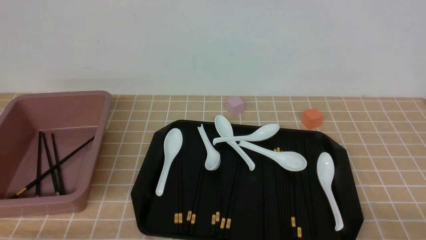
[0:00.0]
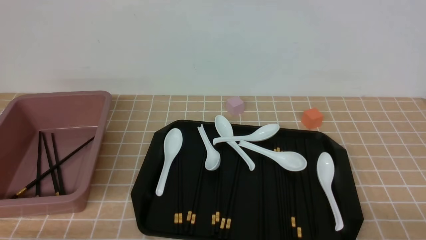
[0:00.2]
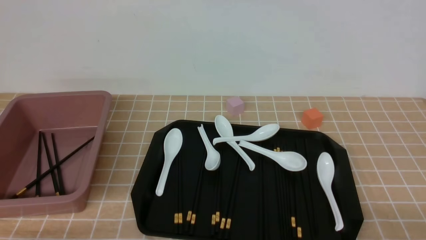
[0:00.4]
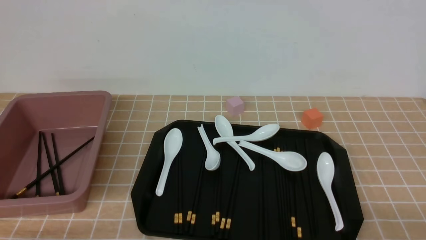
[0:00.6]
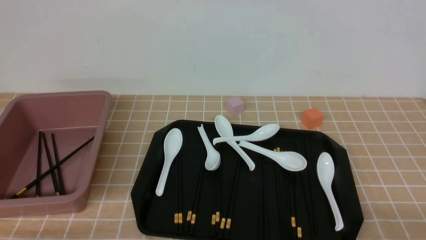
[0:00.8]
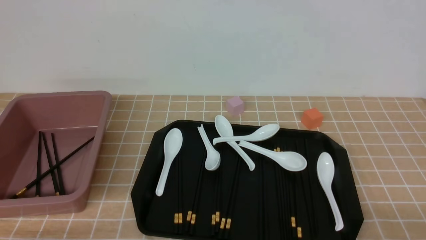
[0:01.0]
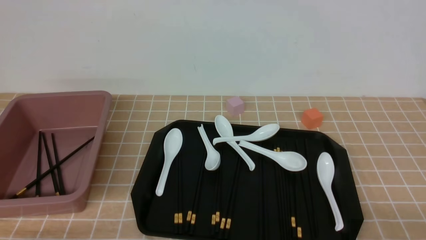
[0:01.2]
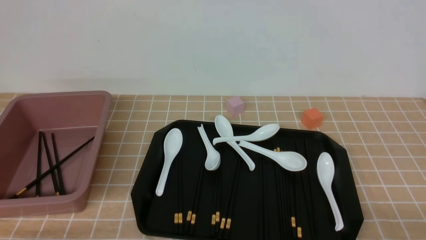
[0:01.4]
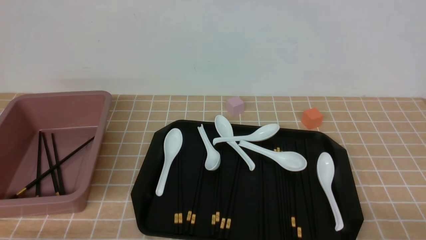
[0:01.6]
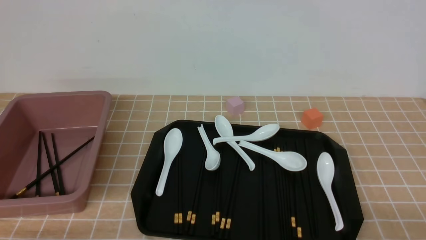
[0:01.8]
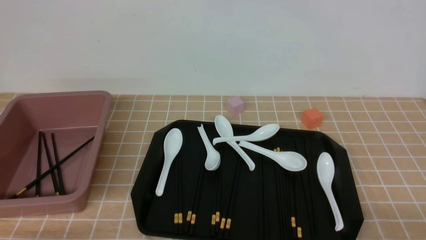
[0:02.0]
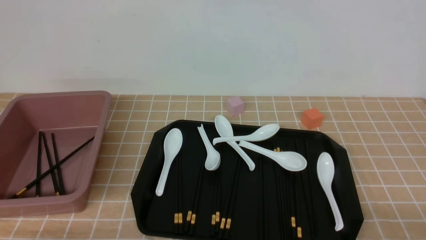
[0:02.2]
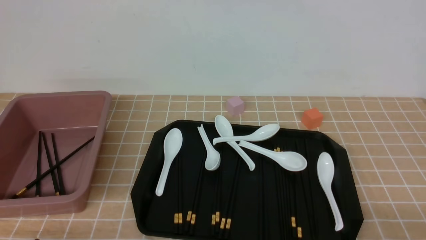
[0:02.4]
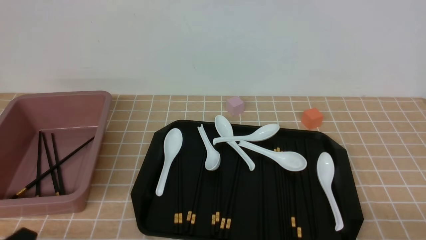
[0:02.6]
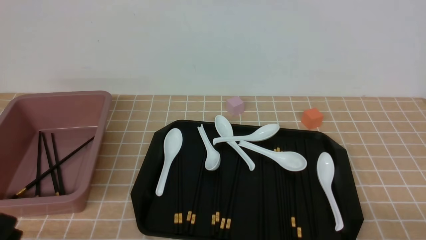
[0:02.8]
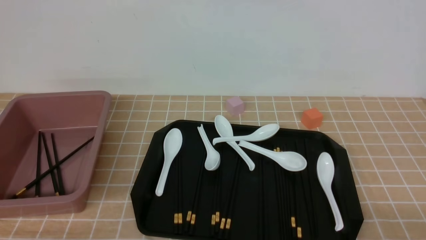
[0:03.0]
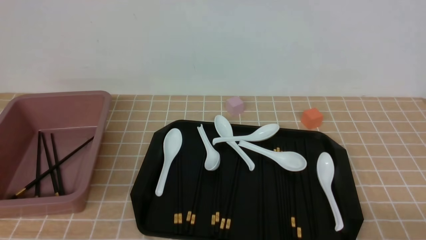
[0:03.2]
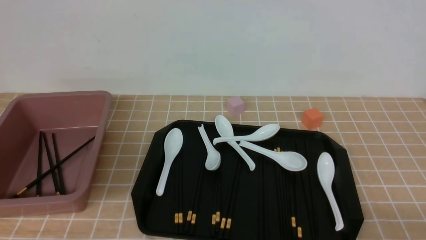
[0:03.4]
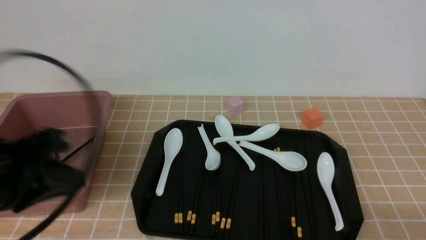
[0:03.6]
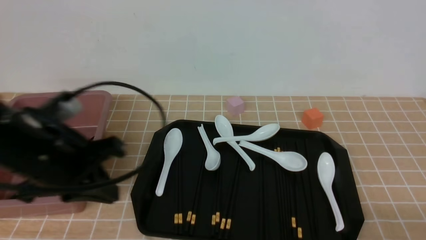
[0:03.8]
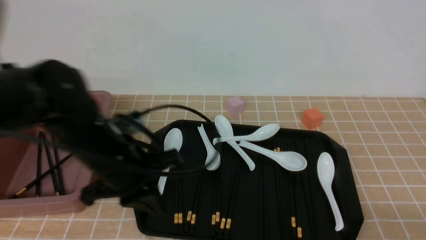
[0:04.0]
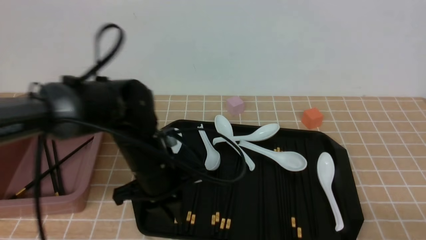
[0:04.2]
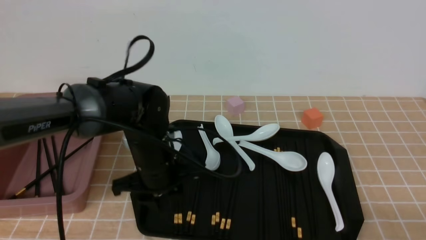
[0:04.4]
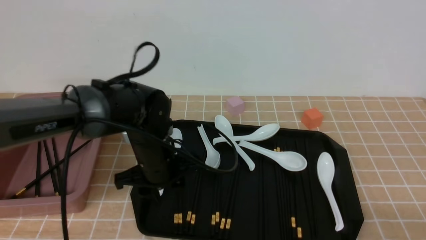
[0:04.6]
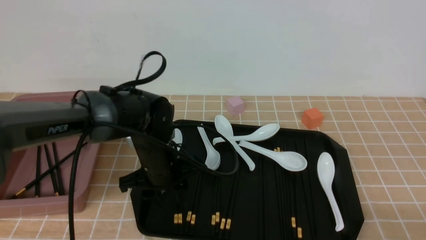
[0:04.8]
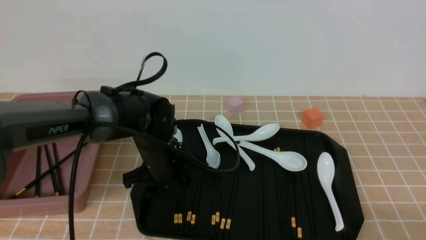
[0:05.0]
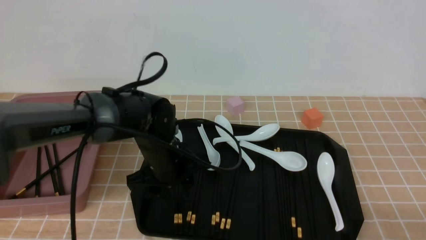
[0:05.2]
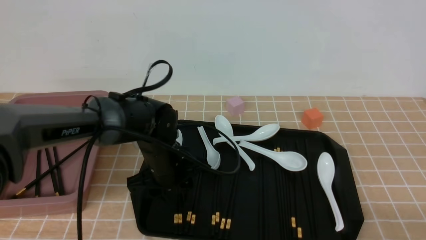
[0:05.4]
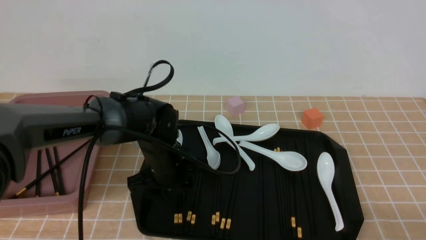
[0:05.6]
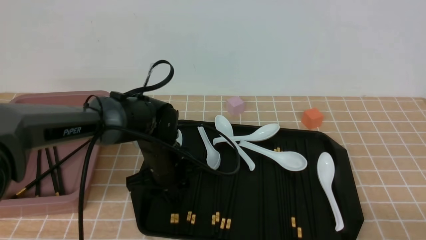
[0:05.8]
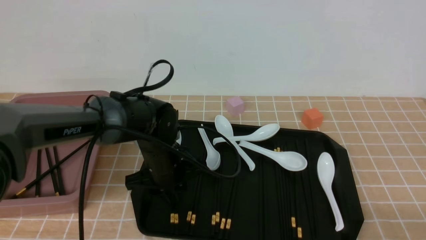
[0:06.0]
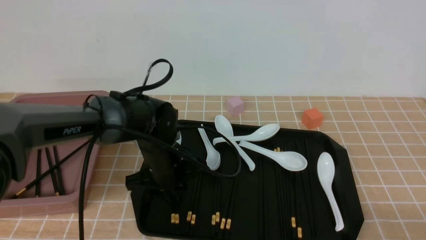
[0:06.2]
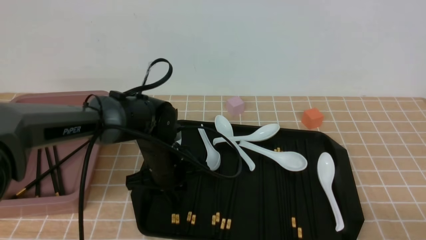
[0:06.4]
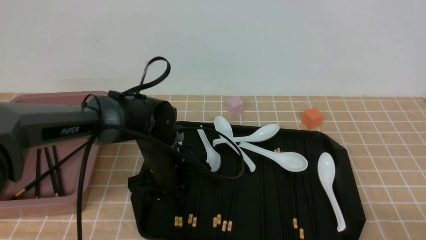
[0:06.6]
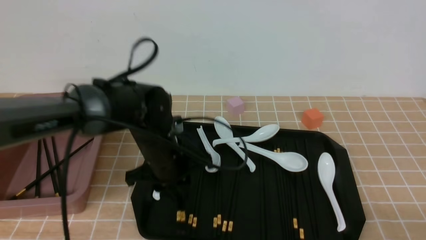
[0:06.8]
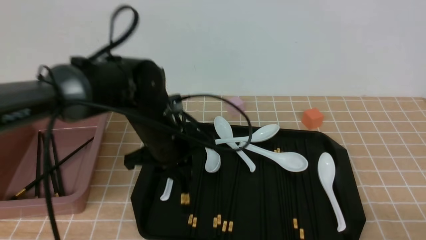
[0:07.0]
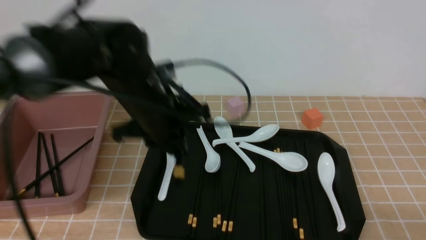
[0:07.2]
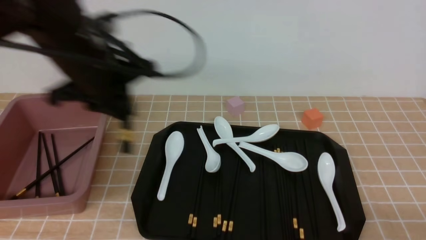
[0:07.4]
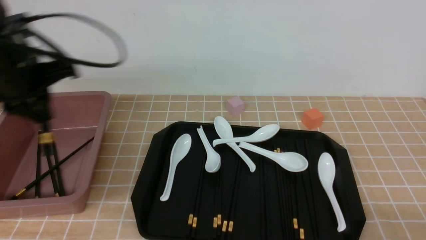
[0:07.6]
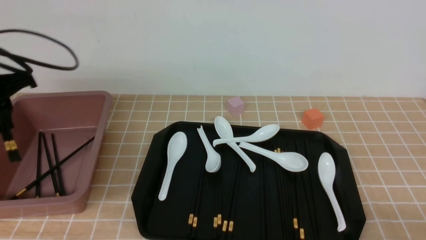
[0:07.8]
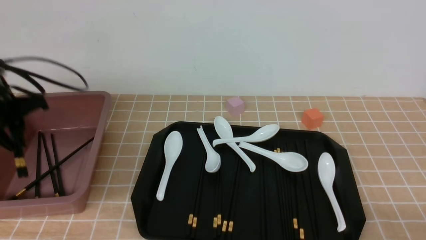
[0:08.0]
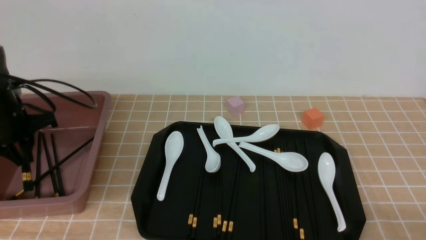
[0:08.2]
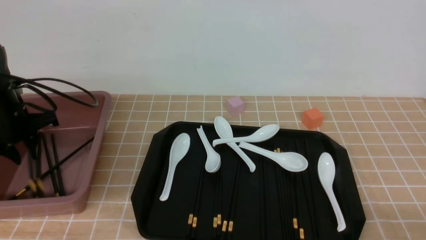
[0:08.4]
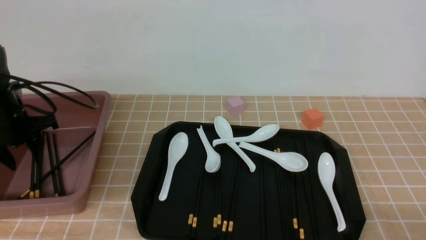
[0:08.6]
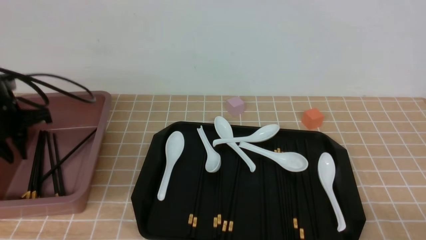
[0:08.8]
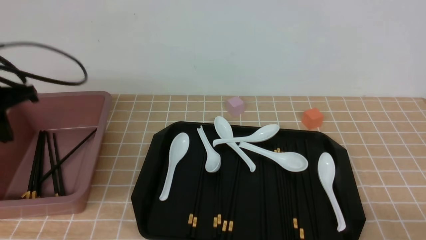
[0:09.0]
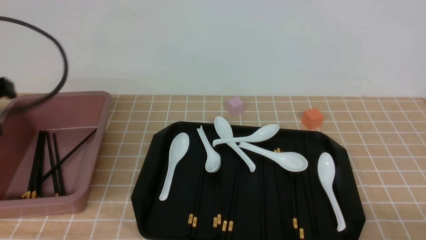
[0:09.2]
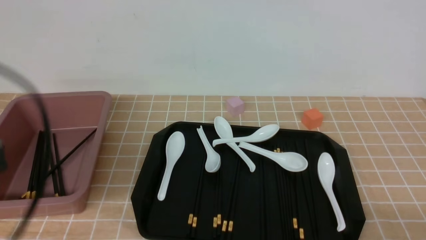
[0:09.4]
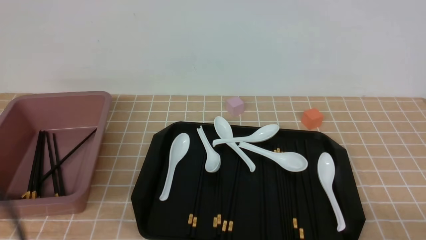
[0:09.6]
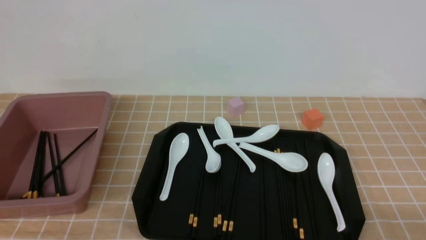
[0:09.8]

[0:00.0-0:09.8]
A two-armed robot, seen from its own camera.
Step, 0:00.0 to 0:06.8: use the left arm to grab a pair of chopsticks.
Step, 0:07.0 to 0:09.0: use the left arm to put the chopsticks into the lunch box.
0:00.0 to 0:01.4: Both grippers stay about where they are.
0:02.8 to 0:04.2: The left gripper heads forward and to the right, covering about 30 cm, and closes up.
0:04.2 to 0:05.6: The left gripper travels downward by about 5 cm, and opens its fingers.
0:05.6 to 0:07.0: The left gripper shifts approximately 10 cm upward, and closes up.
0:07.0 to 0:08.4: The left gripper is displaced to the left by about 25 cm, and opens.
0:08.4 to 0:09.8: The left gripper shifts about 35 cm backward, and closes.

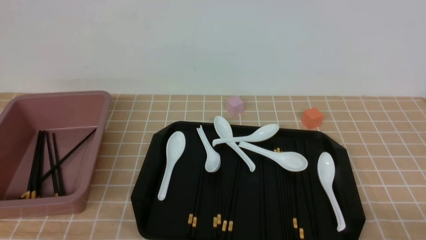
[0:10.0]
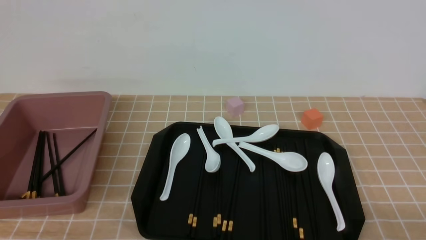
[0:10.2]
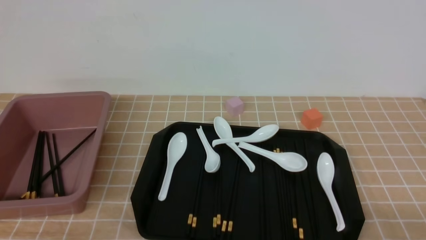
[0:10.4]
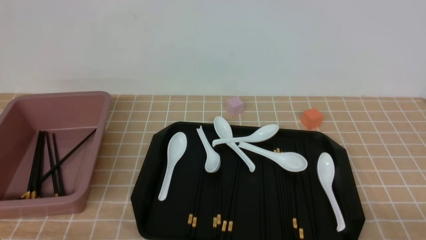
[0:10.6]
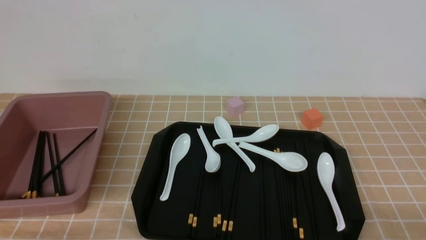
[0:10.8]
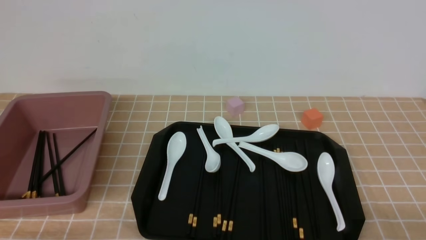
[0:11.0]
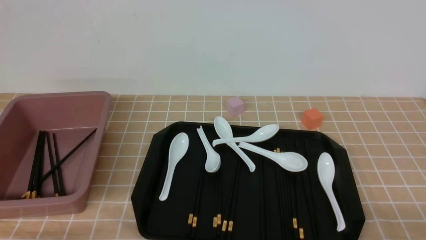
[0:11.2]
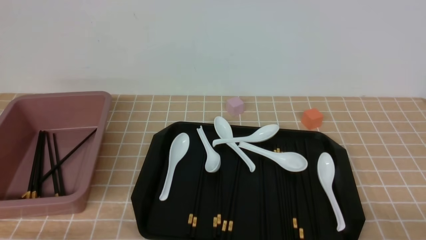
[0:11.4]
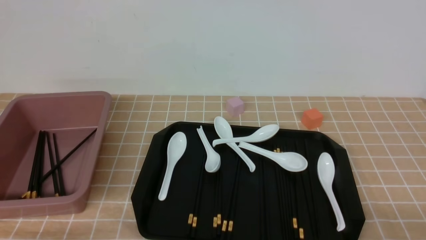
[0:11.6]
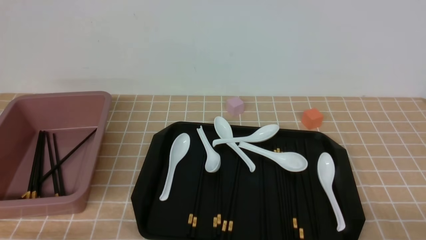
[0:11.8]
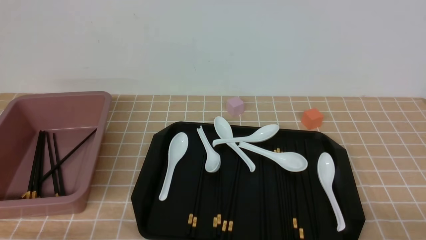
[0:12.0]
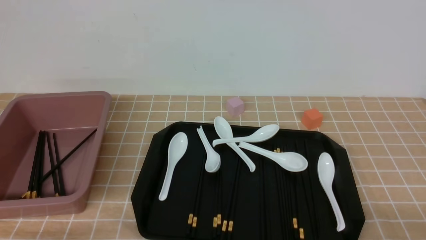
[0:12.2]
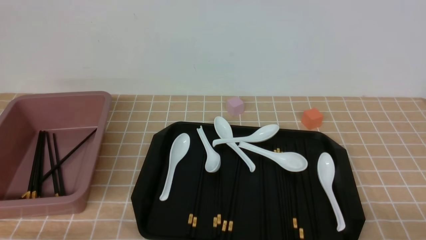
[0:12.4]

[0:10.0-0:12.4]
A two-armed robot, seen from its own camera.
0:10.0 to 0:11.2: The left gripper travels downward by some 10 cm.
0:11.2 to 0:12.4: The two grippers keep their place.
